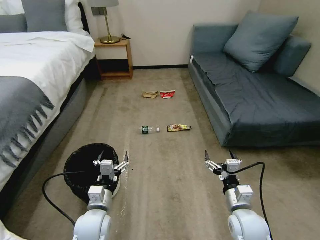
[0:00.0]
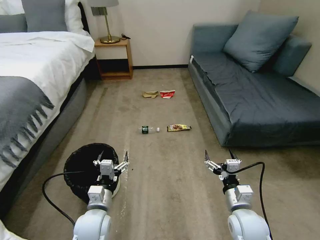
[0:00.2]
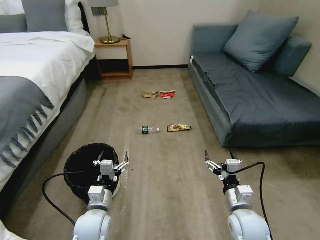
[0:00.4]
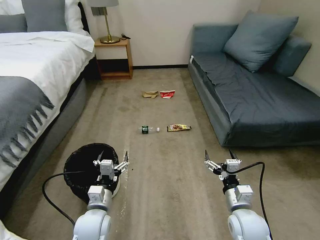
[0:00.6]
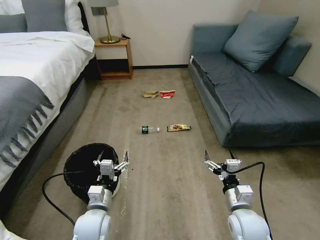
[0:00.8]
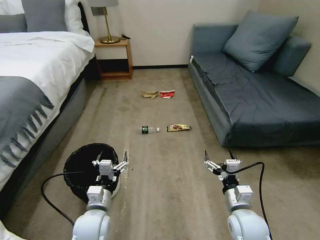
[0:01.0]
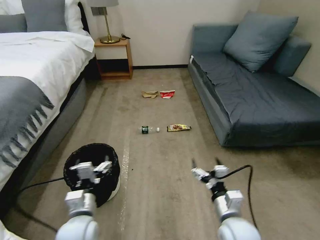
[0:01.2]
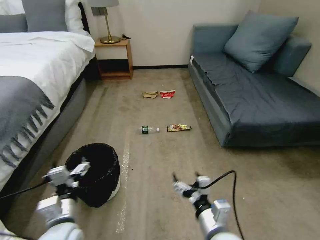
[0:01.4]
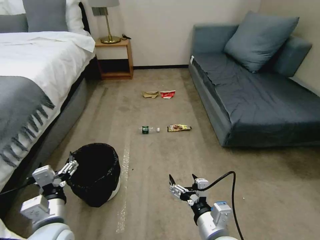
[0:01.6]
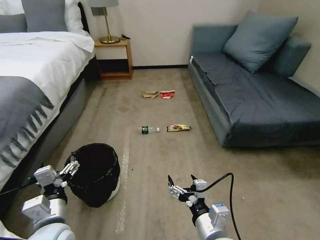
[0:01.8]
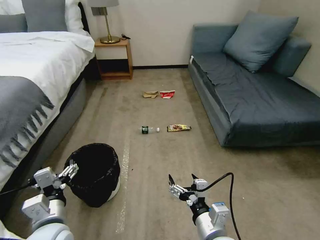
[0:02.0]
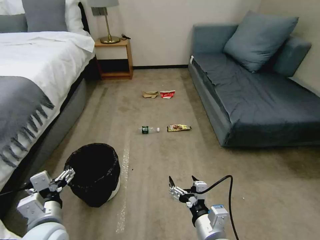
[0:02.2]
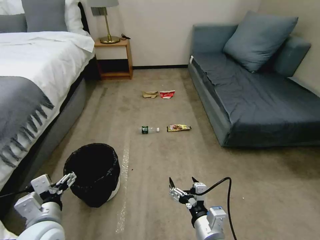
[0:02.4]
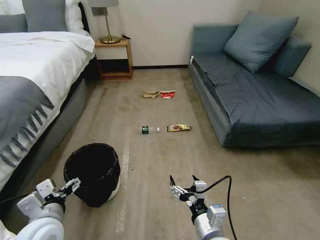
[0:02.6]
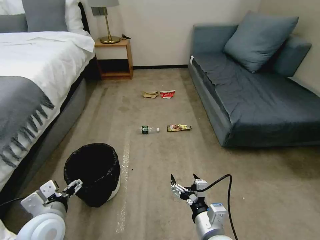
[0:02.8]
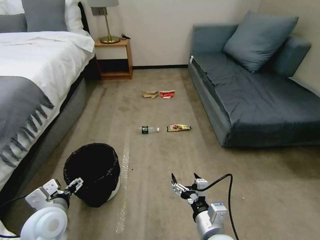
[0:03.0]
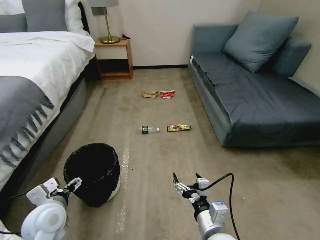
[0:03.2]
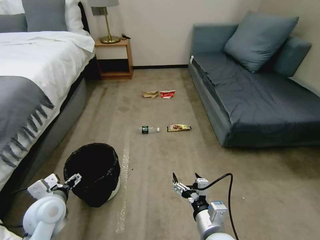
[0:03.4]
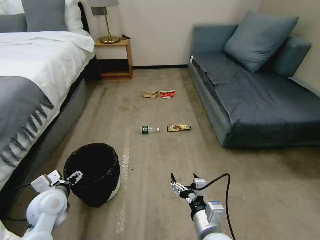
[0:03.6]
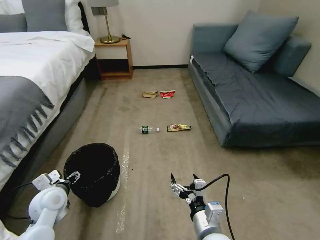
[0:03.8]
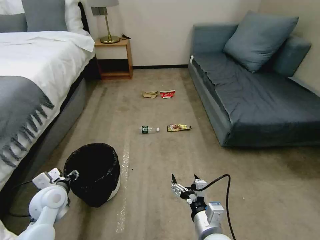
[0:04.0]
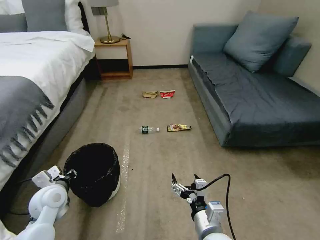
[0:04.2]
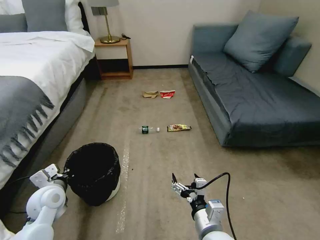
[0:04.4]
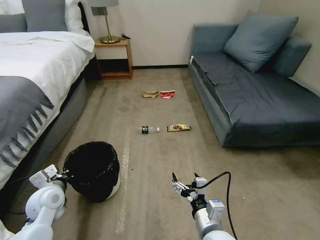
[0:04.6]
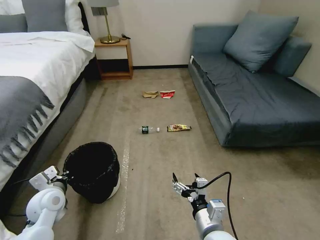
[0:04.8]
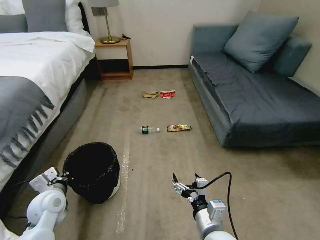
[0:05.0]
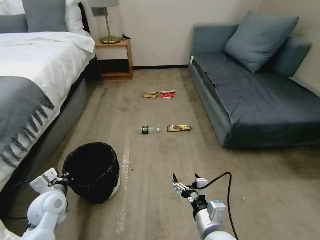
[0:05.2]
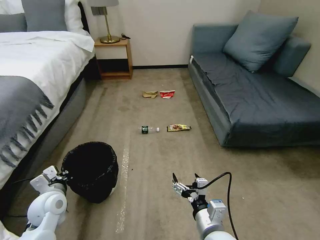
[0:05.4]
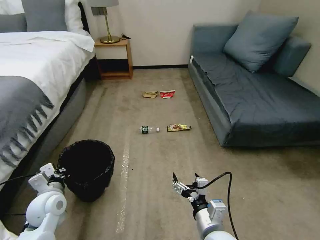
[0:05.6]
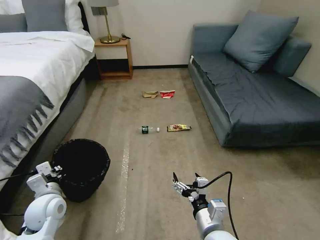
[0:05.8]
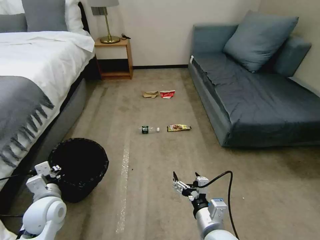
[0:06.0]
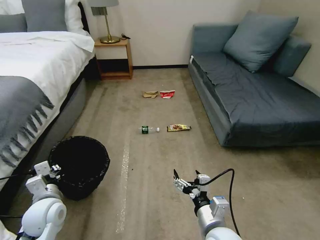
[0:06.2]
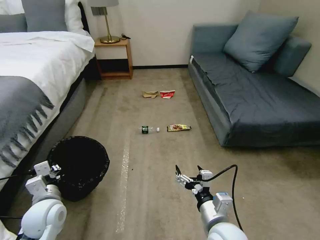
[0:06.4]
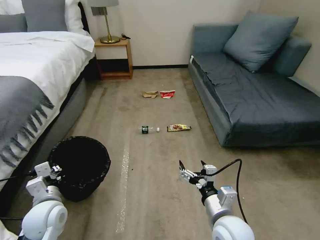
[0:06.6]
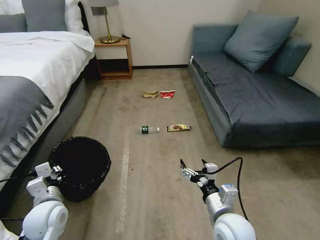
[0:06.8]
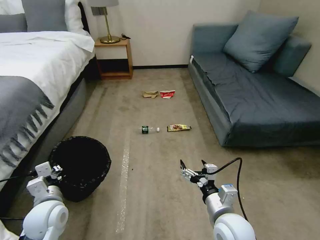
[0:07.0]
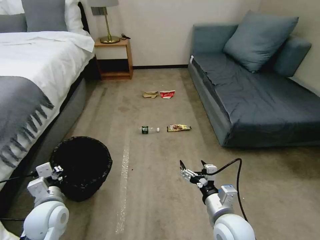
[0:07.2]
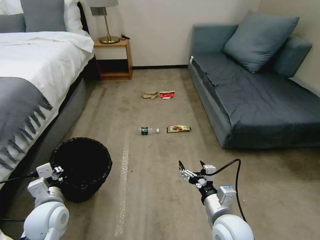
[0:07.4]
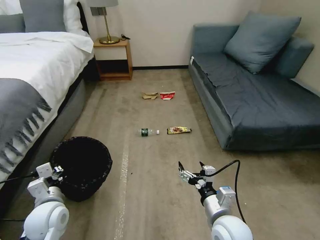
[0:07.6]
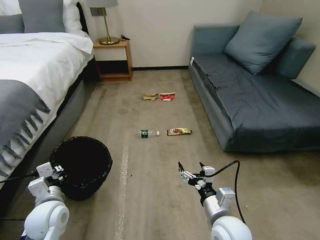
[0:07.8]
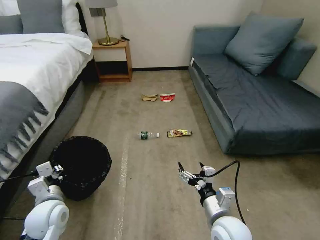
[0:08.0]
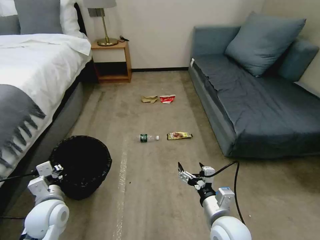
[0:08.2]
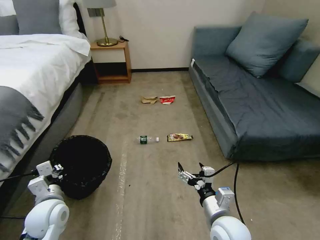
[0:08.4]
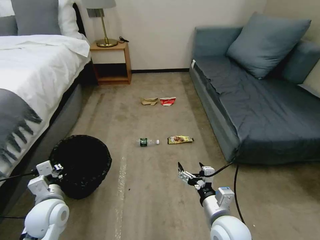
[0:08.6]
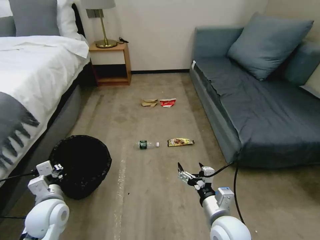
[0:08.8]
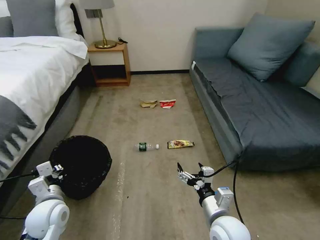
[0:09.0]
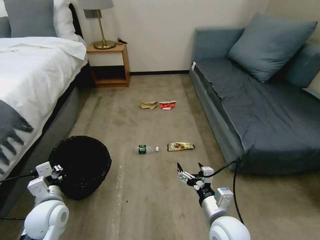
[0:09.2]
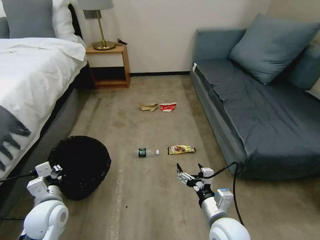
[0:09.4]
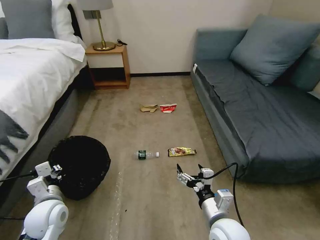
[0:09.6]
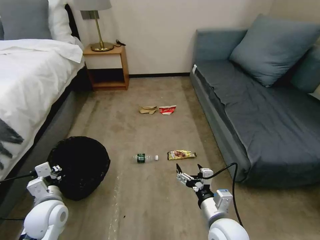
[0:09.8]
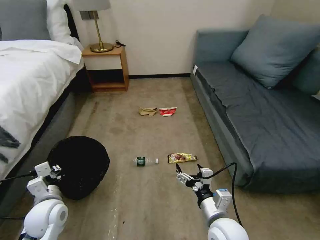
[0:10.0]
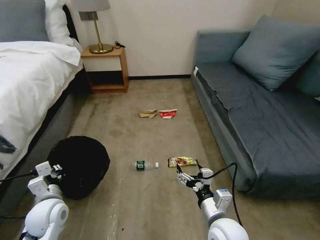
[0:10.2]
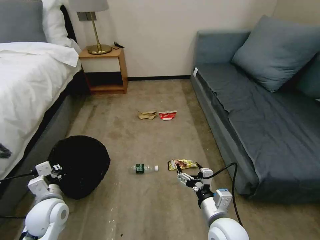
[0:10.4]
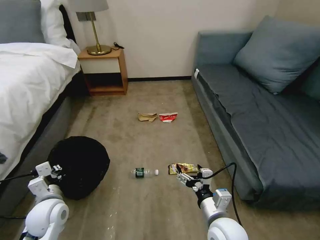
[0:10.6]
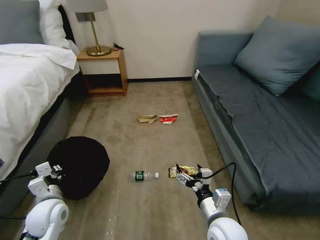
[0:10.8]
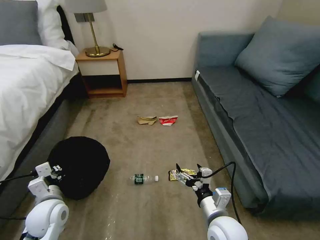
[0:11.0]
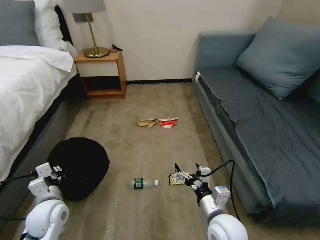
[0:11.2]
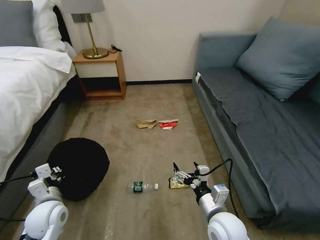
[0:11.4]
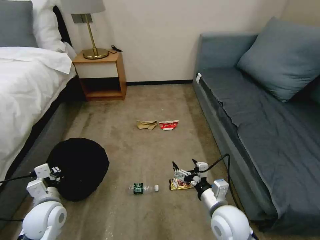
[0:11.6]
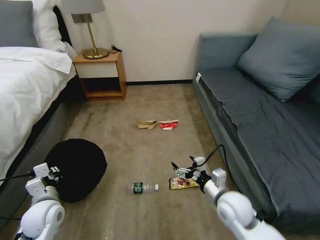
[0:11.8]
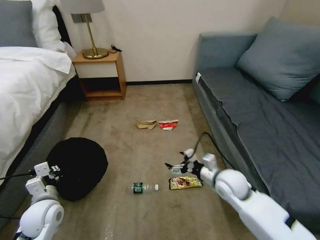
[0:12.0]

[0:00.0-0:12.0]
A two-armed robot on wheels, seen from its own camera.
Task of the whole recording: Pick up the trash bin, then pick up the garbage on the floor and place it into the trash bin.
0:01.6 to 0:03.0: The left gripper shifts by approximately 5 cm.
0:03.0 to 0:04.4: The left gripper heads forward and to the left, covering approximately 10 cm, and closes up.
0:06.0 to 0:07.6: The grippers stay close to where they were, moving slightly.
0:10.4 to 0:12.0: The right gripper is displaced forward and to the right by about 15 cm.

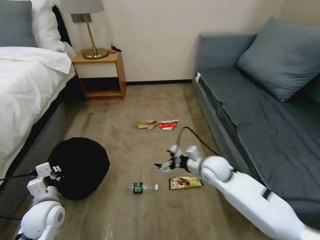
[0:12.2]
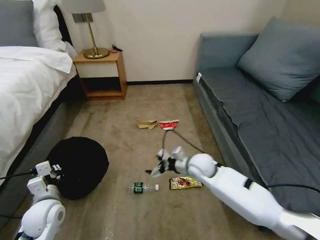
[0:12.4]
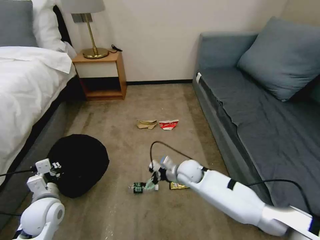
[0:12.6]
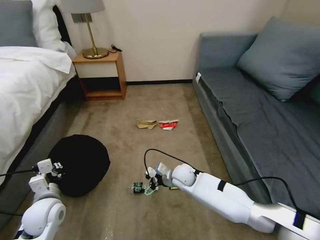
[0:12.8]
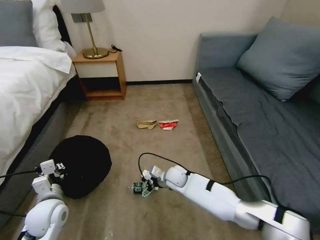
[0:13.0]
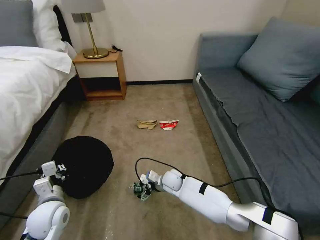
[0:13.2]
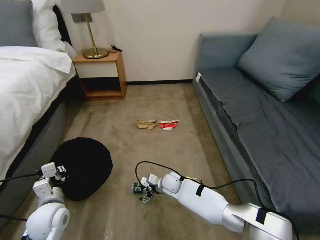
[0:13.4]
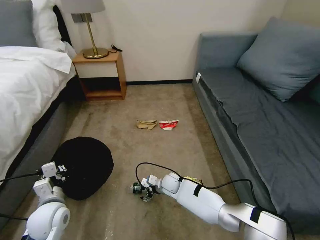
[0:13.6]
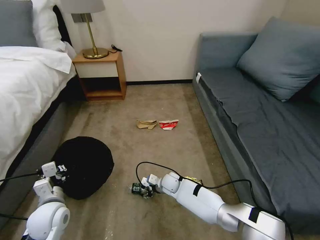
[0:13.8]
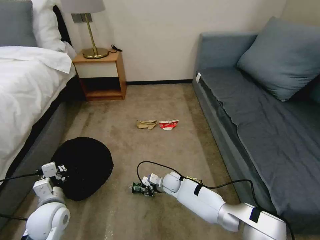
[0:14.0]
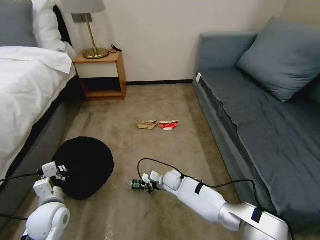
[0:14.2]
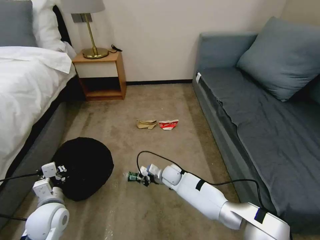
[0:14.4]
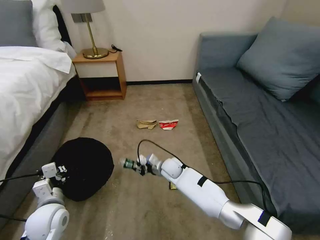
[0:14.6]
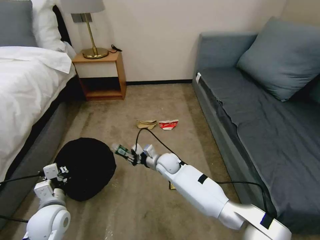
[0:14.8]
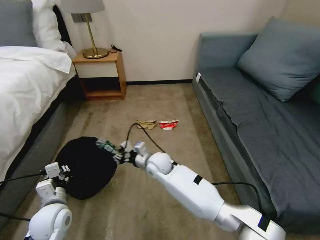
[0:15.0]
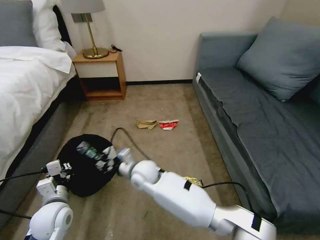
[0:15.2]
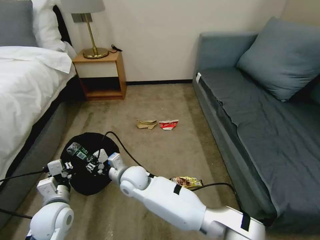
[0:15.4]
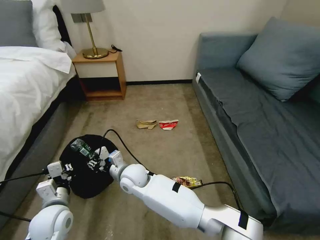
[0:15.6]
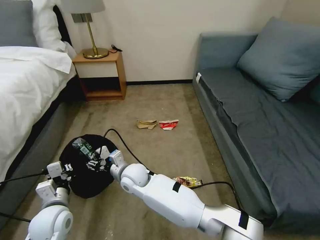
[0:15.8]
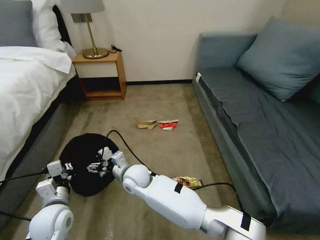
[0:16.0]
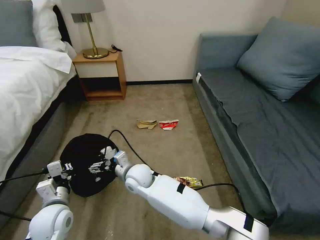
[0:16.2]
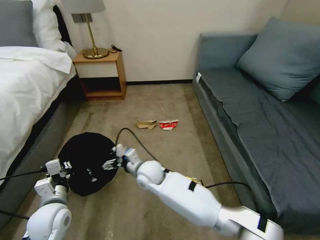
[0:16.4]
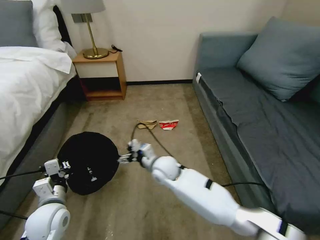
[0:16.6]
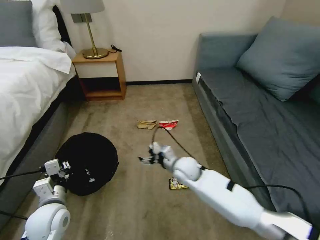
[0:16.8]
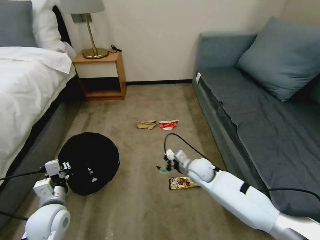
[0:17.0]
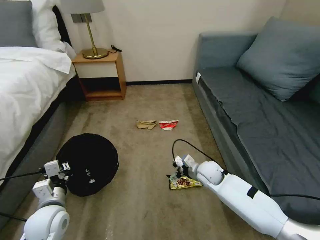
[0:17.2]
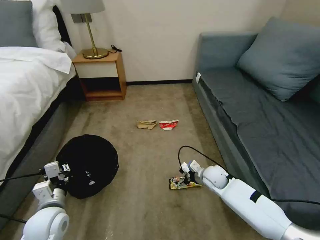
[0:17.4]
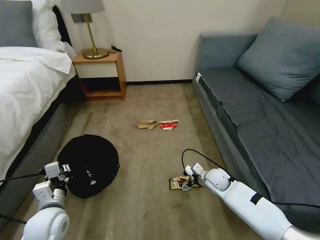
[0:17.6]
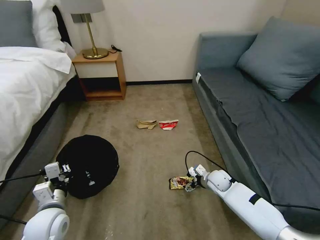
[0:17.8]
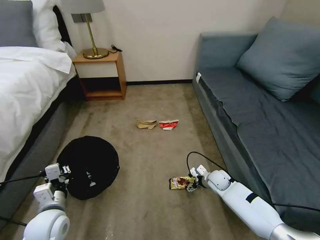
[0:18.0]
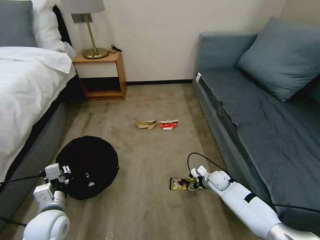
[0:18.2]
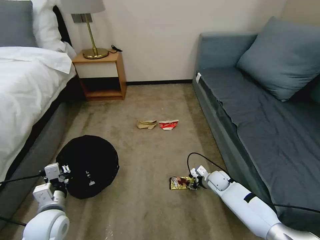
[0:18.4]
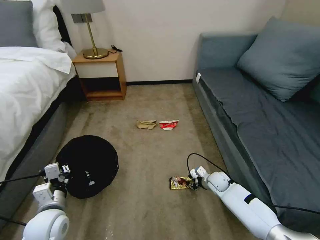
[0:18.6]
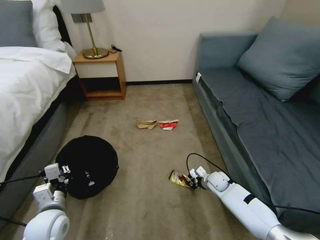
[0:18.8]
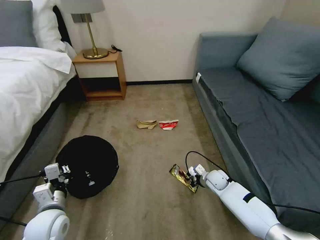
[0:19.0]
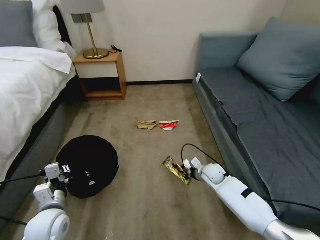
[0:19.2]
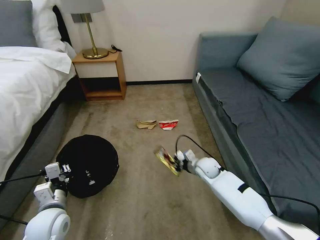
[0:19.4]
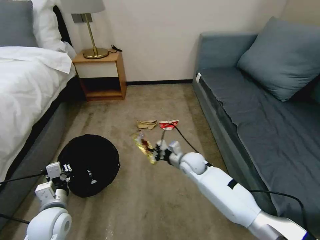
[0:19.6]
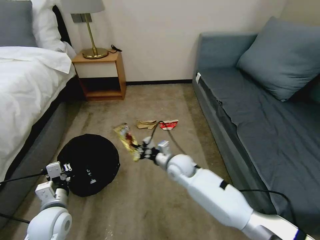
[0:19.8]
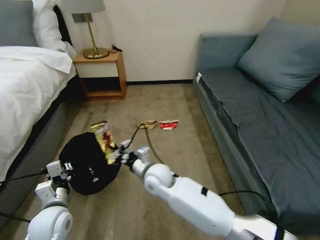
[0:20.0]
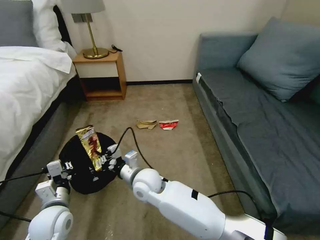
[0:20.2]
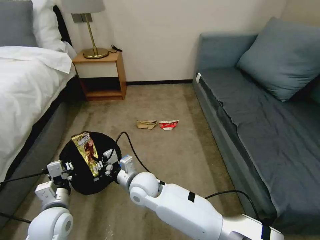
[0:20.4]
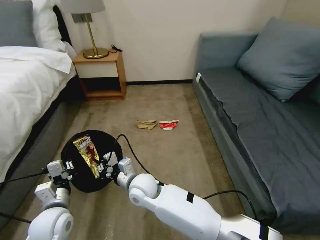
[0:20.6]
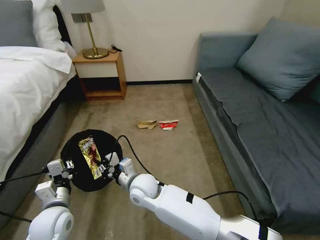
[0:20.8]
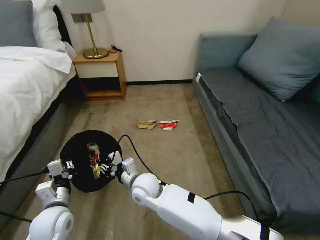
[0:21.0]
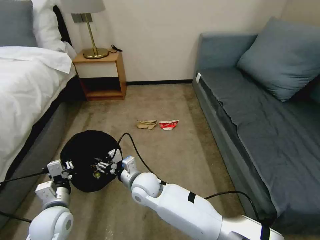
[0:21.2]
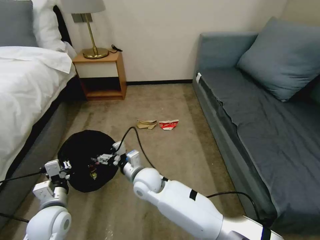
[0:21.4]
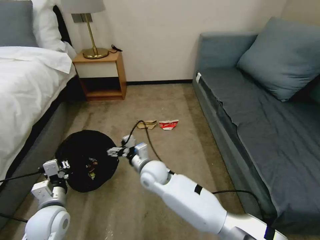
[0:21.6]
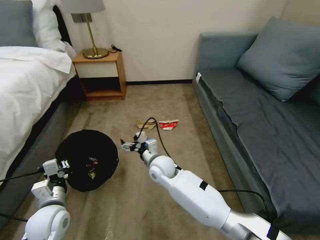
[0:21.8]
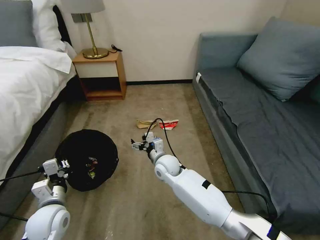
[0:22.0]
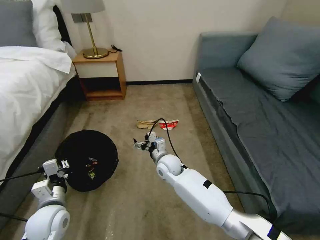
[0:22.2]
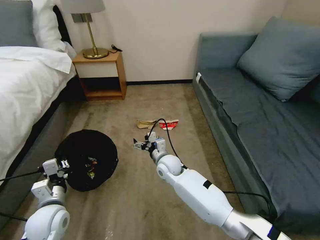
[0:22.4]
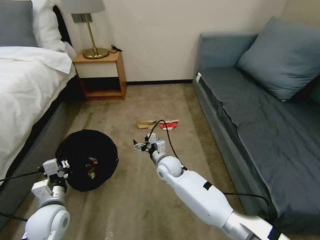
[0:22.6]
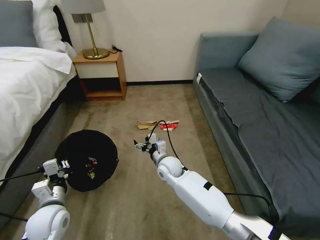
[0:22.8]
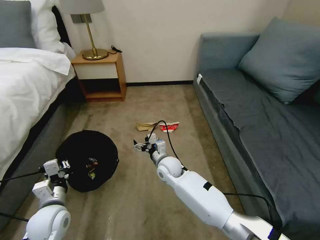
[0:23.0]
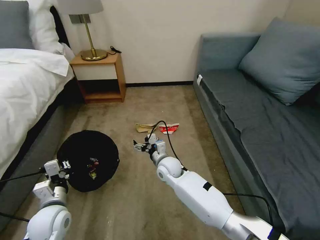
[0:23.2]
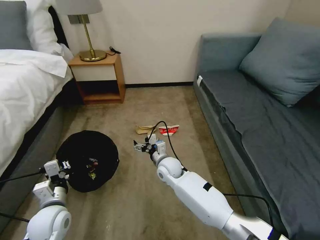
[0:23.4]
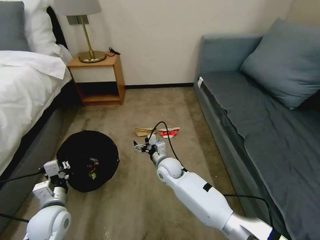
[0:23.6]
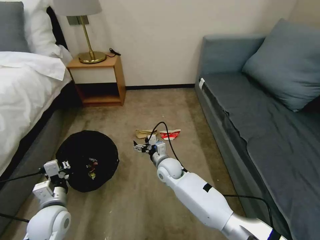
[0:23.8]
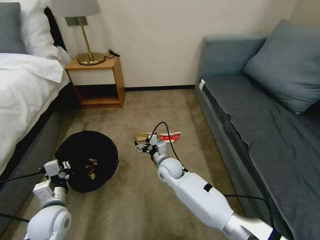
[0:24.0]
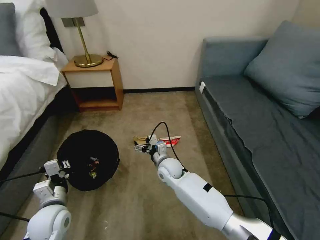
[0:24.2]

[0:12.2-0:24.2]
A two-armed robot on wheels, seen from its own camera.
Task of the whole recording: Pick up the trash bin, then pick up the garbage on the floor and place it into the trash bin.
0:12.2 to 0:13.8: The right gripper is displaced downward and to the left by approximately 25 cm, and closes.
0:13.8 to 0:15.2: The right gripper heads upward and to the left, covering about 20 cm, and closes.
0:15.2 to 0:16.6: The right gripper is displaced to the right by about 10 cm, and opens.
0:16.6 to 0:18.2: The right gripper heads to the right and downward, covering roughly 30 cm.
0:18.2 to 0:19.8: The right gripper moves to the left and upward, roughly 25 cm, and closes.
0:19.8 to 0:21.2: The right gripper moves to the left and backward, approximately 15 cm, and opens its fingers.
0:21.2 to 0:22.6: The right gripper is displaced to the right and forward by roughly 15 cm.
